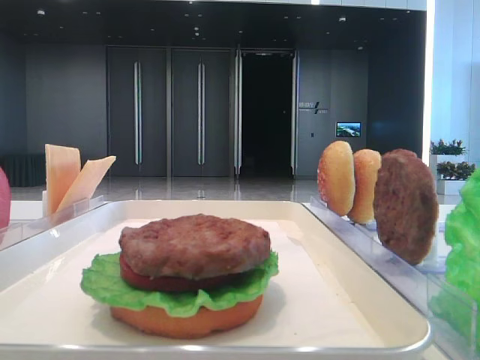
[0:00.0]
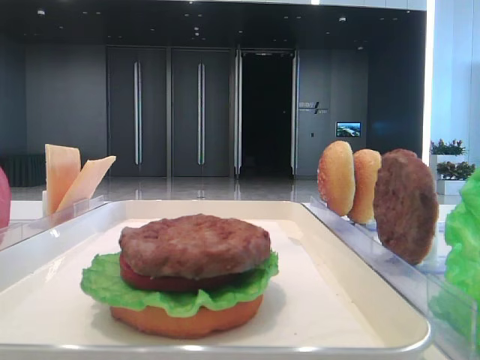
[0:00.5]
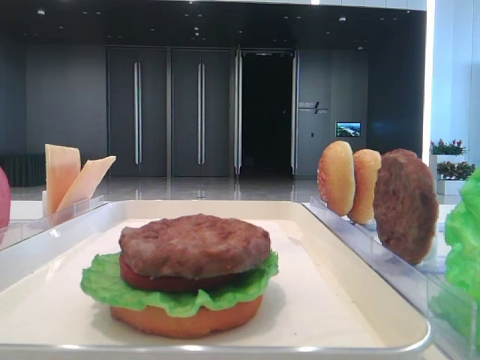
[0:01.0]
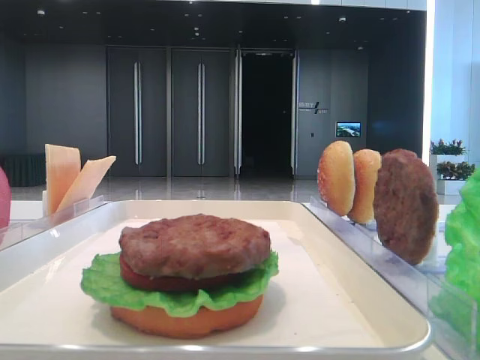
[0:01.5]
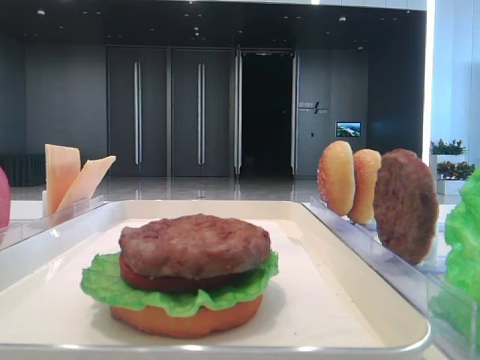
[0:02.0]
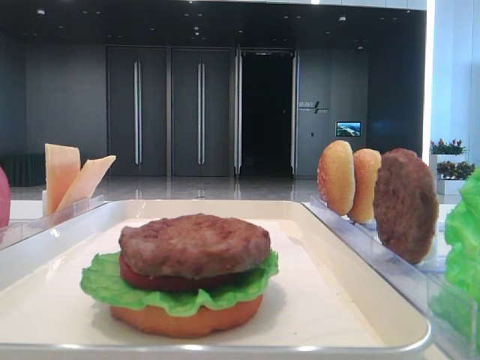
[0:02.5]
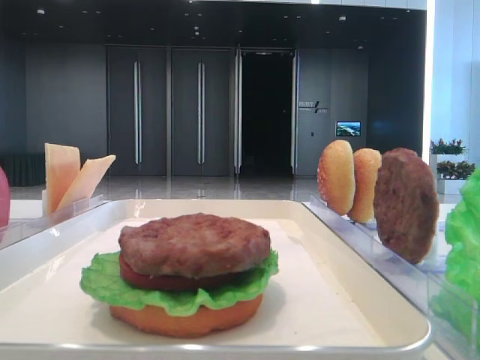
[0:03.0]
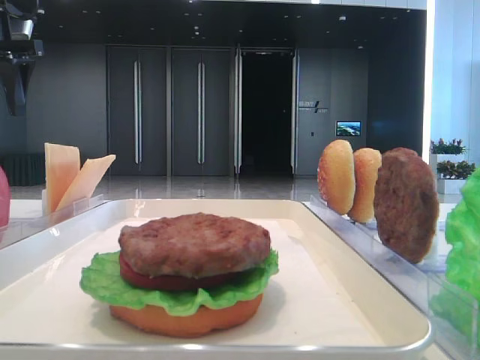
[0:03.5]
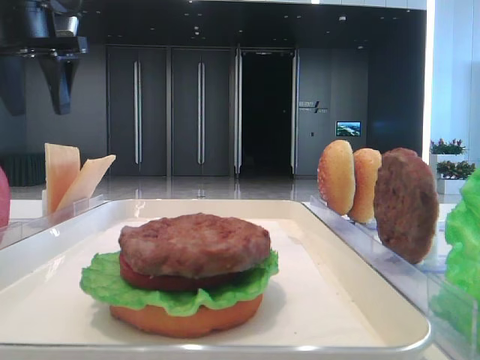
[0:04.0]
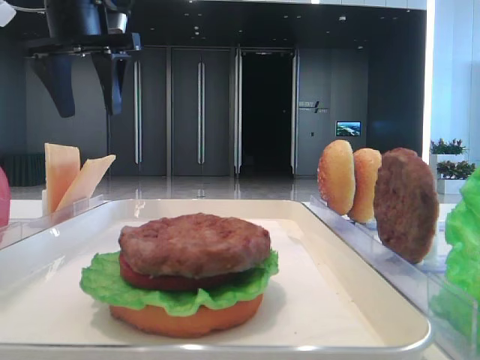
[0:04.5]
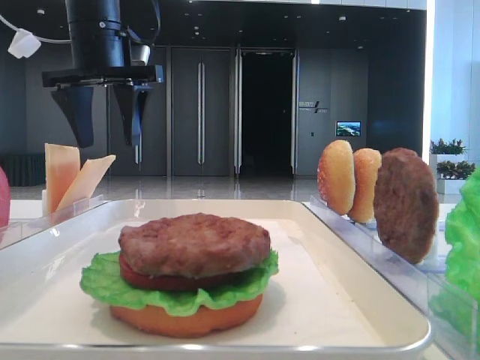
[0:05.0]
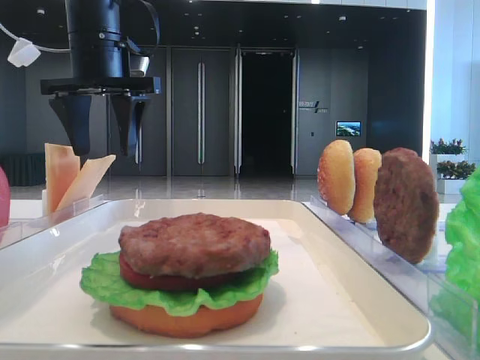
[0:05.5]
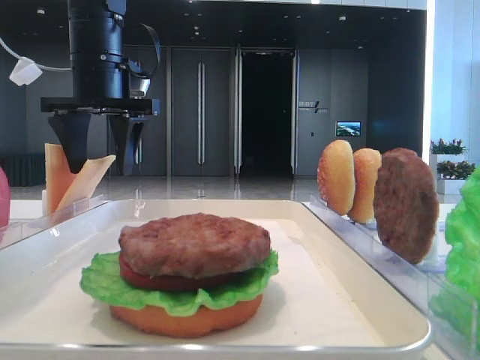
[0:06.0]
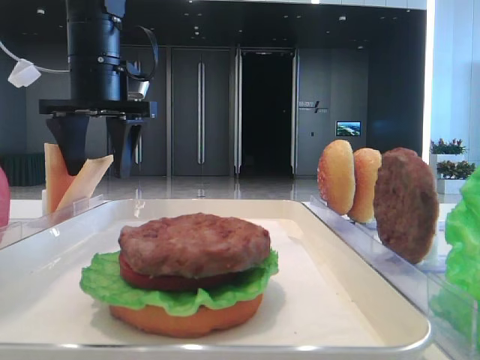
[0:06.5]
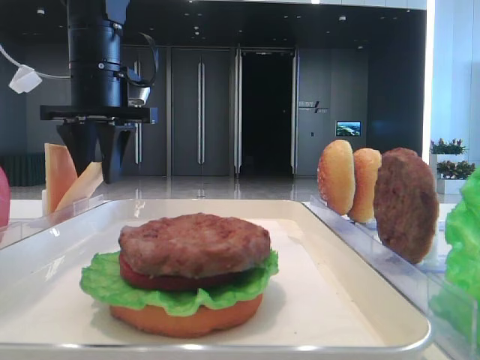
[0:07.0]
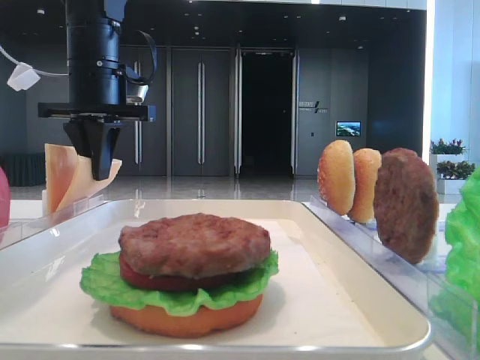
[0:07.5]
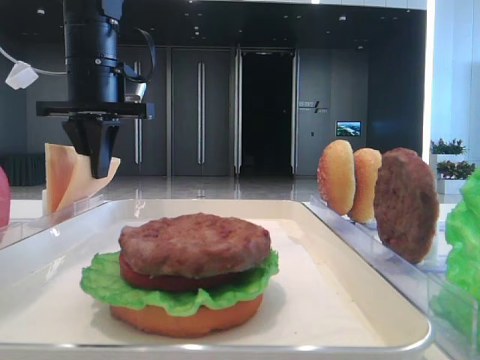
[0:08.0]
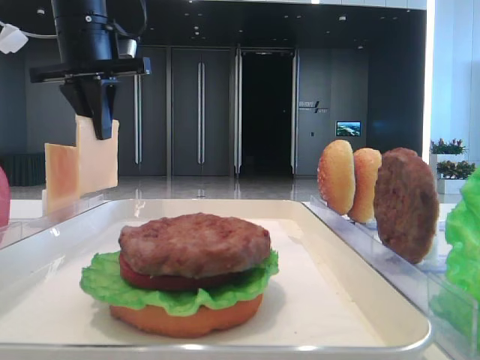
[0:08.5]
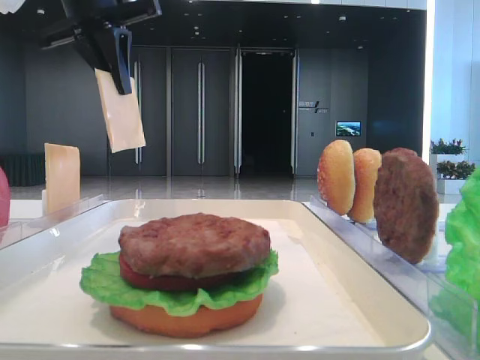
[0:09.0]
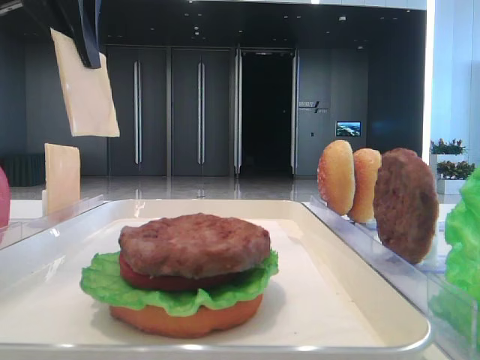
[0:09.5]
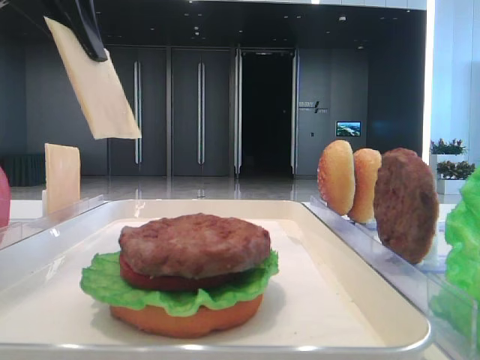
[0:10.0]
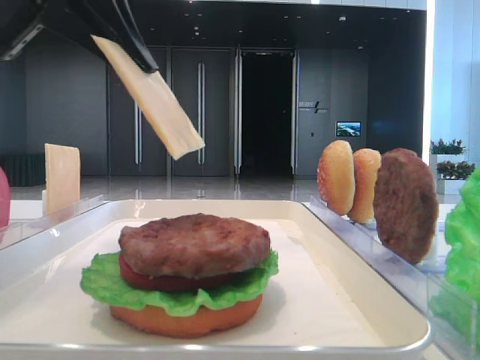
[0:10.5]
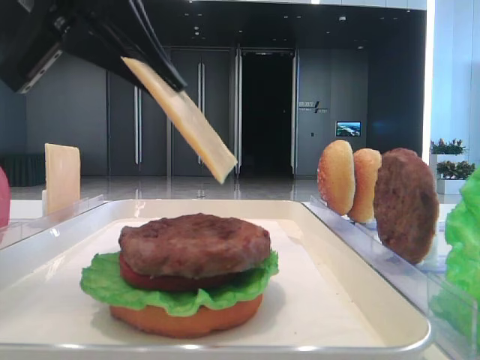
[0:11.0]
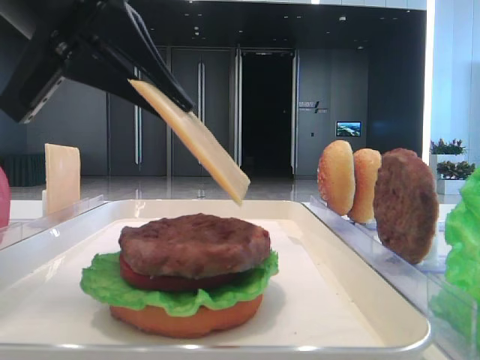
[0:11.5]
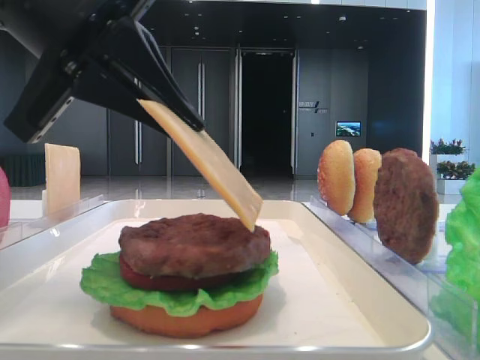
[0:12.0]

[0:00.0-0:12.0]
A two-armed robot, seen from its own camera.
Step, 0:00.0 to 0:08.0: Pick up the cheese slice with the left hand.
0:02.0 to 0:04.0: The left gripper is displaced forward by roughly 35 cm.
0:04.0 to 0:06.0: The left gripper heads to the right and downward, covering roughly 10 cm.
0:06.0 to 0:08.0: The left gripper closes its fingers.
0:08.0 to 0:10.0: The left gripper travels backward and upward by about 15 cm.
0:10.0 to 0:12.0: The left gripper goes some 10 cm downward, backward and to the right.

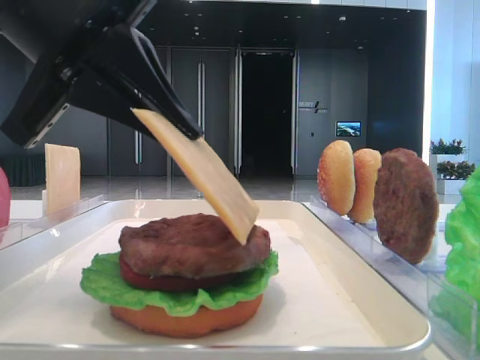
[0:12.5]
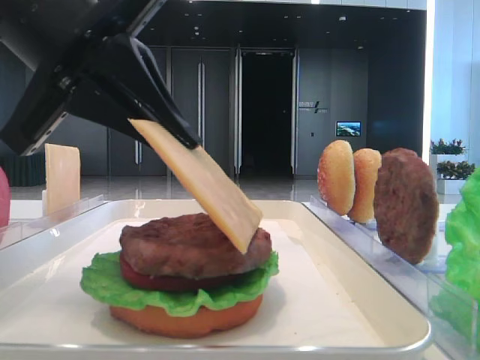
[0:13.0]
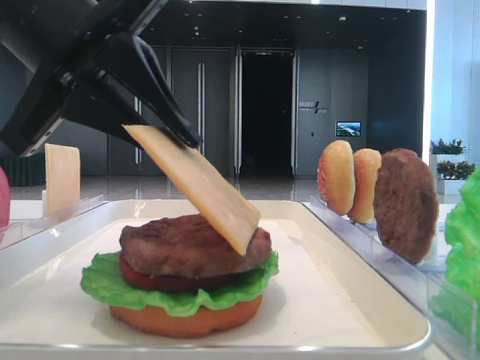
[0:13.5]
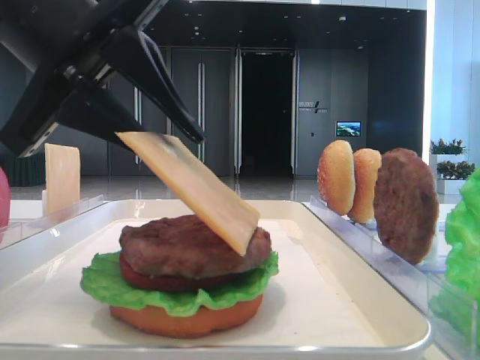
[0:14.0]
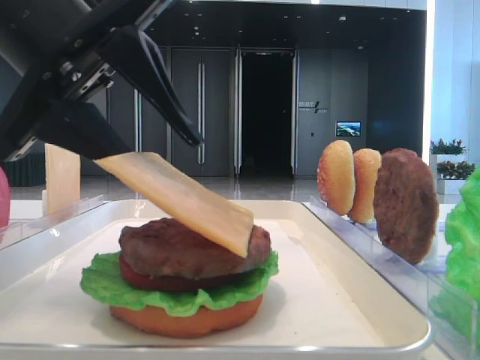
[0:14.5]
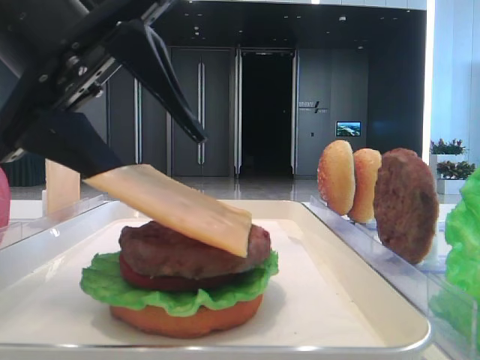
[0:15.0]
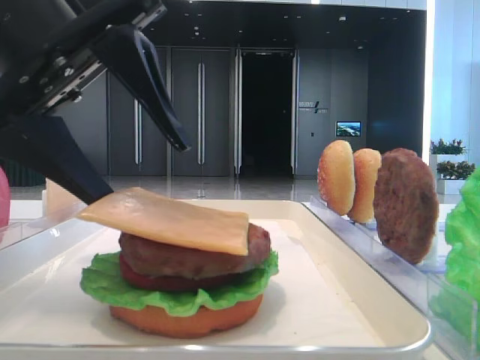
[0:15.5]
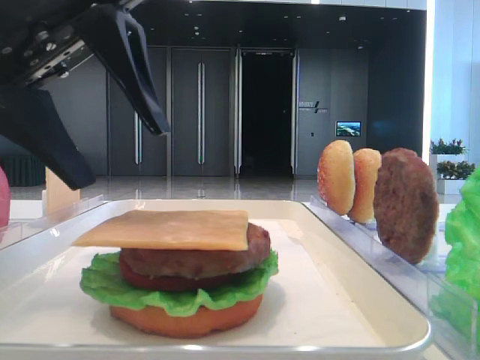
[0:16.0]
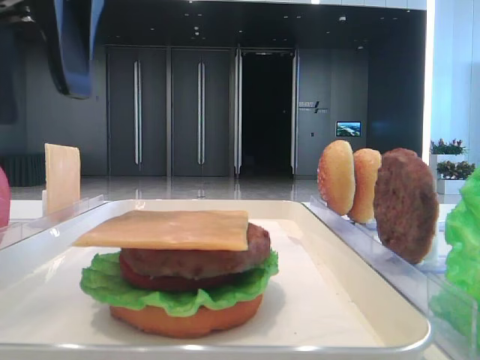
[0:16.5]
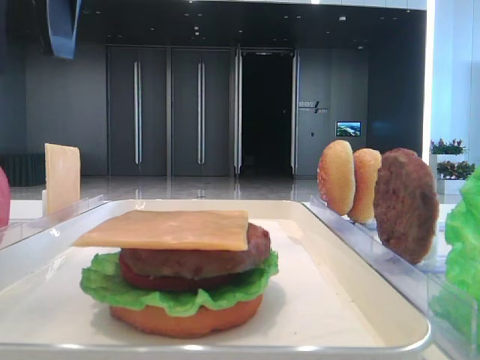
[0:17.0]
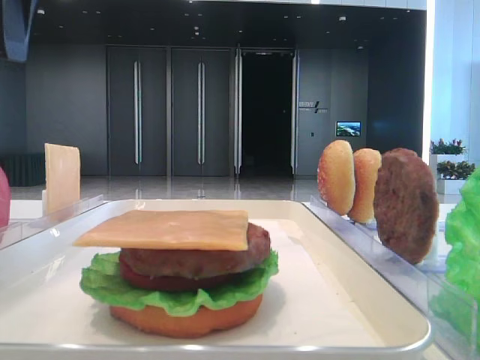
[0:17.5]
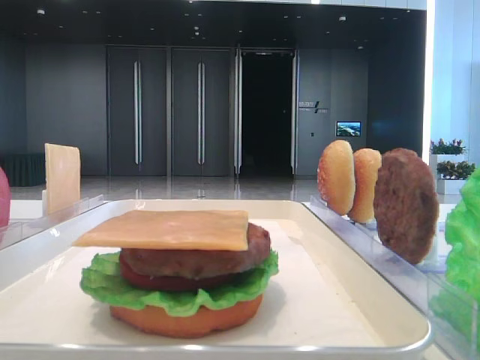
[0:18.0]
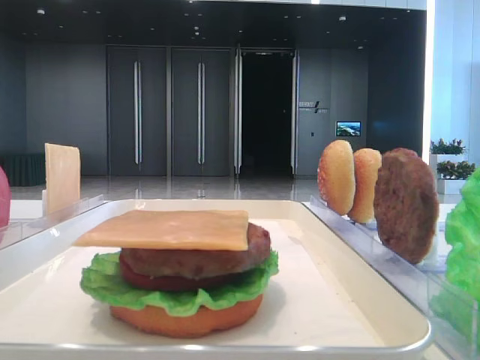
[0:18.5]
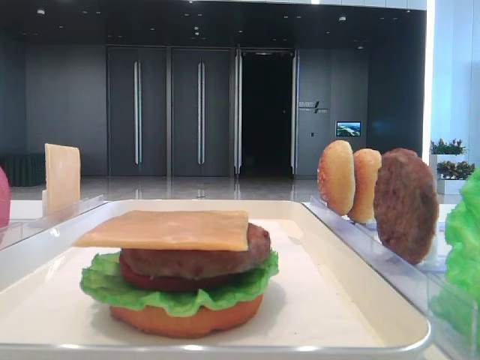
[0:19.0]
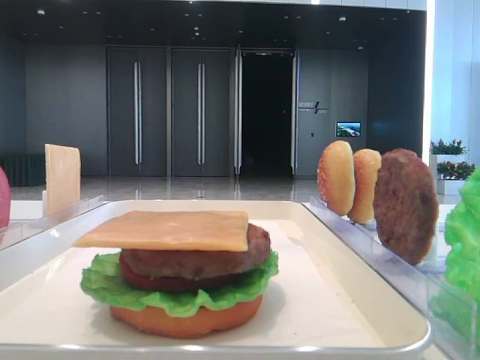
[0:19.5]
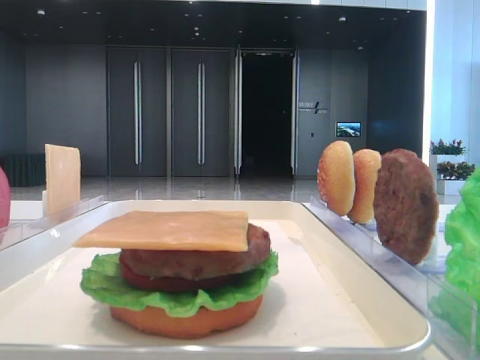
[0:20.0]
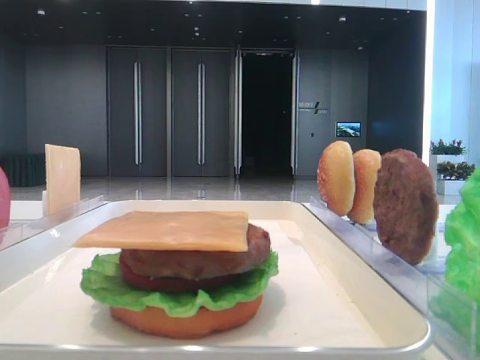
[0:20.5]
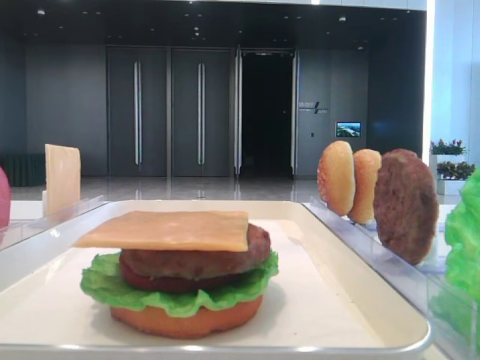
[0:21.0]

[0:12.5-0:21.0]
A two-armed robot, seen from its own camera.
Step, 0:12.5 to 0:15.5: Place the cheese slice on the patty with the left hand.
0:12.5 to 0:14.5: The left gripper opens.
0:14.5 to 0:16.5: The left gripper heads upward, covering about 5 cm.
0:16.5 to 0:19.0: The left gripper moves to the left and upward, roughly 20 cm.

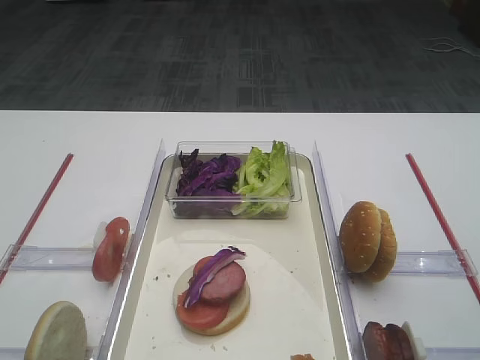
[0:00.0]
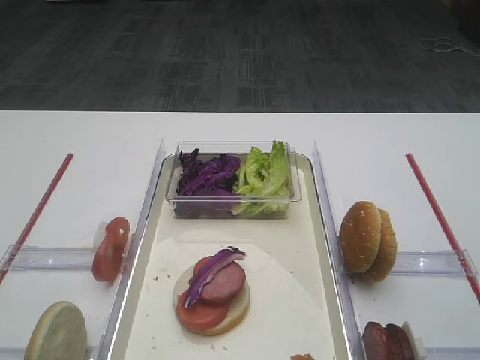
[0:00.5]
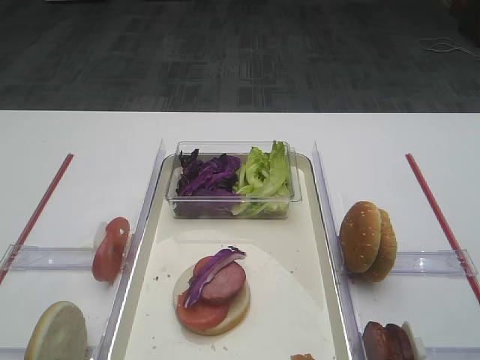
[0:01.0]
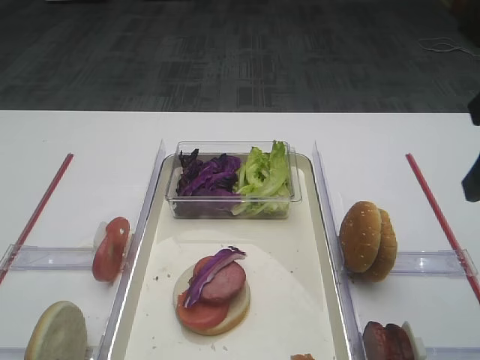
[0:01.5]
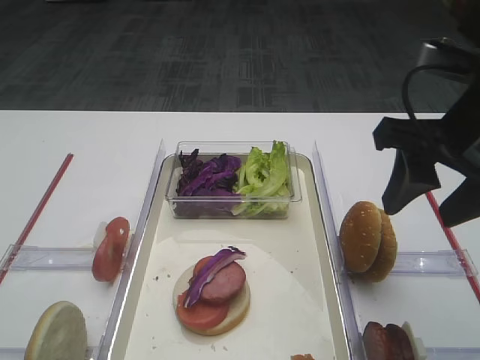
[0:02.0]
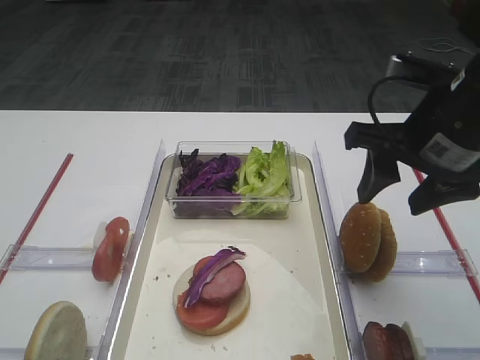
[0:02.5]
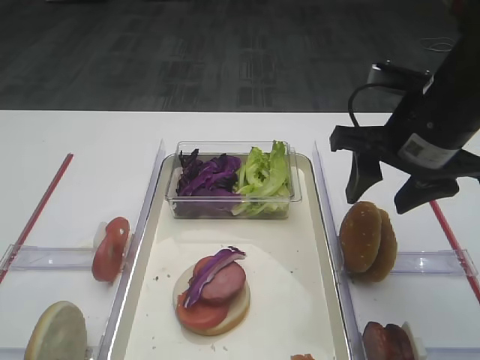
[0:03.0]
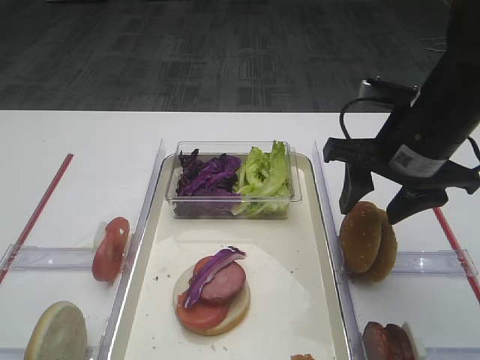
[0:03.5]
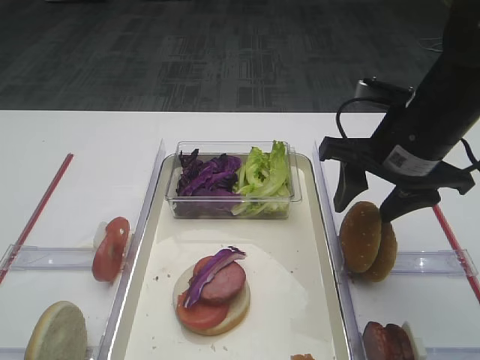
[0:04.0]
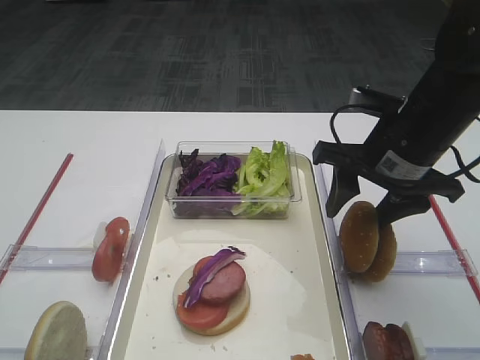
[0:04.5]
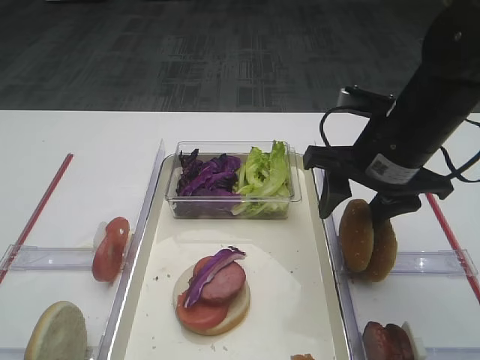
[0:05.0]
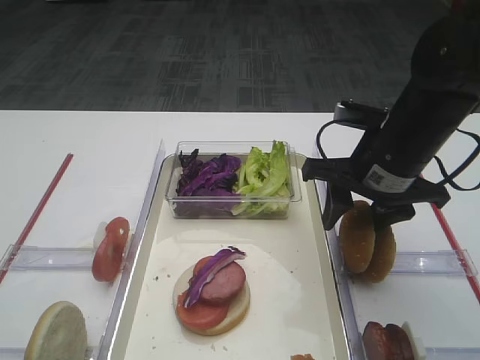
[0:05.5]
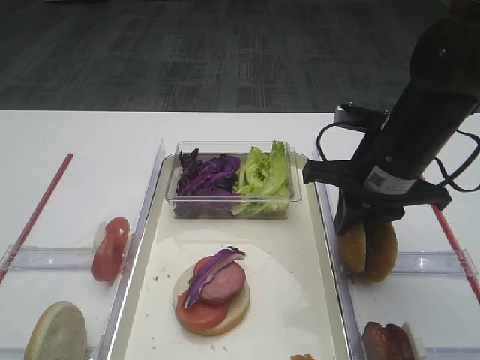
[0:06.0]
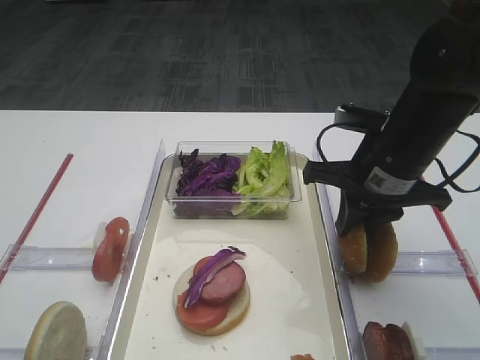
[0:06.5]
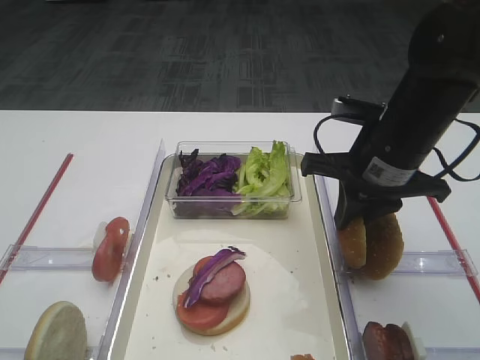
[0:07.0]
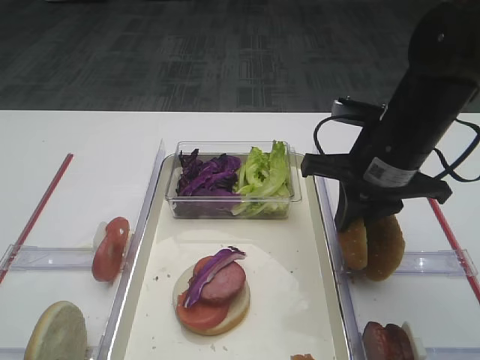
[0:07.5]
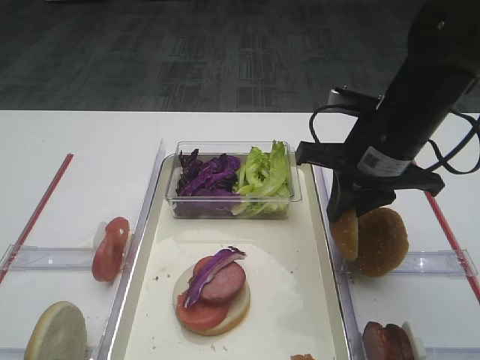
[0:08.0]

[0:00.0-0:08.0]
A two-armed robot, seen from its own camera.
0:02.0 to 0:04.0: The right gripper shifts about 10 cm forward and downward.
0:04.0 to 0:06.0: The right gripper closes.
0:06.0 to 0:08.0: The grippers stay close to where they were, moving slightly.
